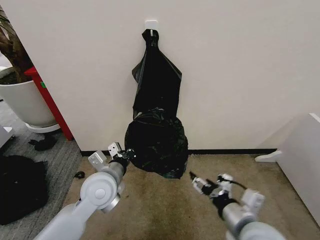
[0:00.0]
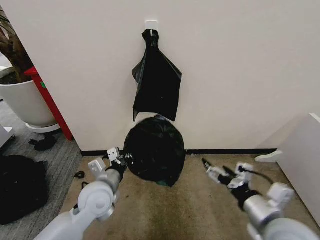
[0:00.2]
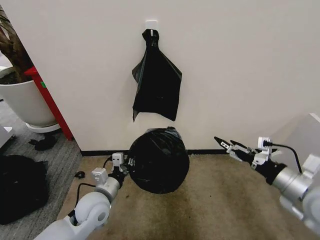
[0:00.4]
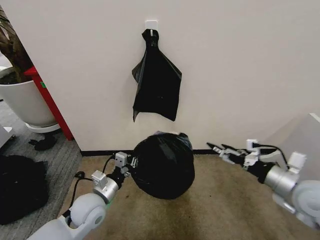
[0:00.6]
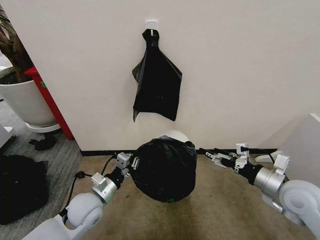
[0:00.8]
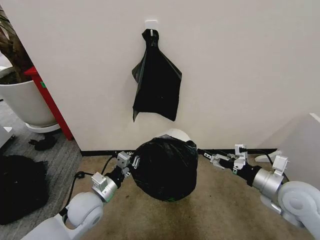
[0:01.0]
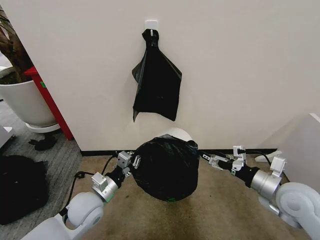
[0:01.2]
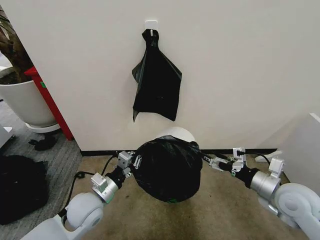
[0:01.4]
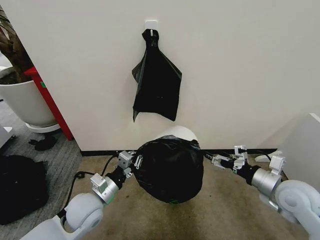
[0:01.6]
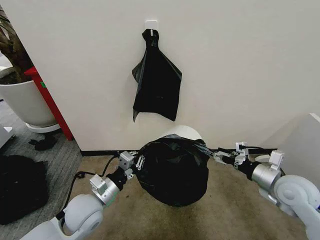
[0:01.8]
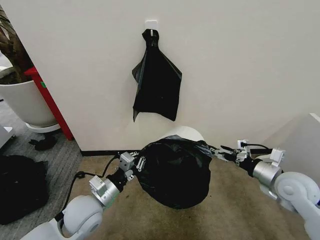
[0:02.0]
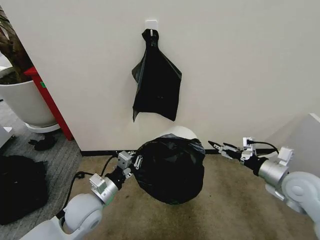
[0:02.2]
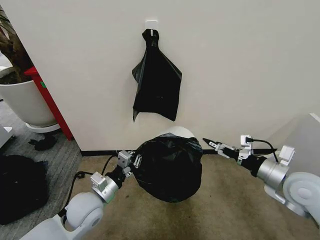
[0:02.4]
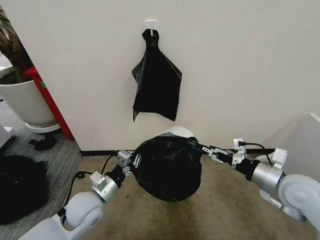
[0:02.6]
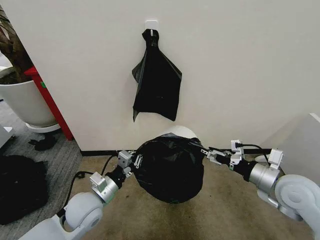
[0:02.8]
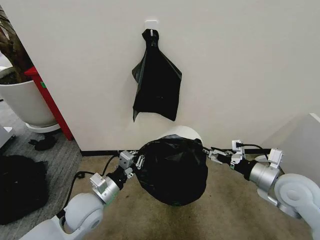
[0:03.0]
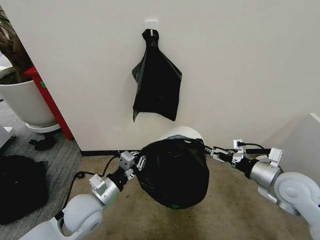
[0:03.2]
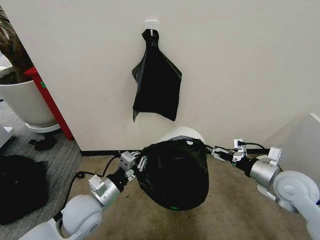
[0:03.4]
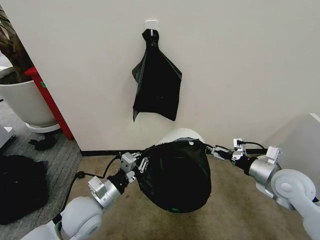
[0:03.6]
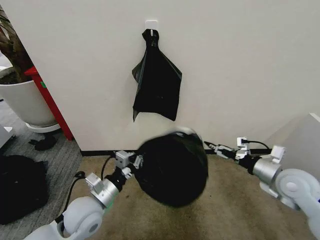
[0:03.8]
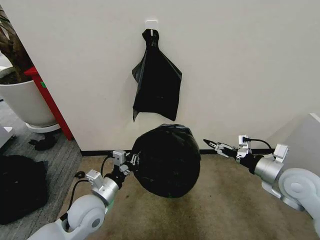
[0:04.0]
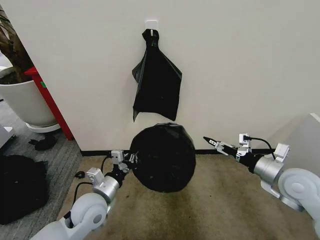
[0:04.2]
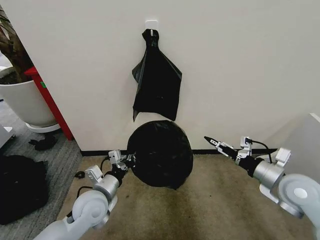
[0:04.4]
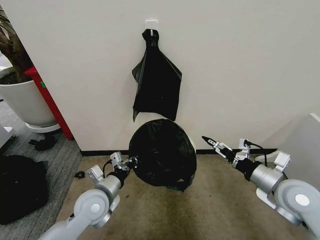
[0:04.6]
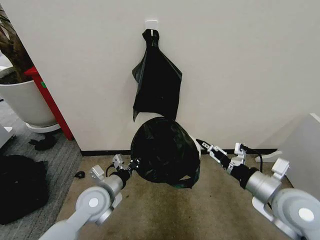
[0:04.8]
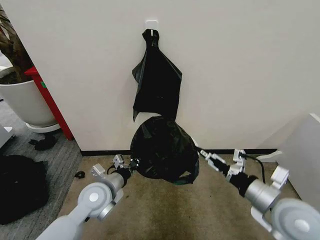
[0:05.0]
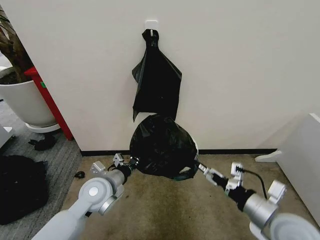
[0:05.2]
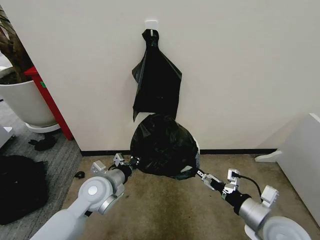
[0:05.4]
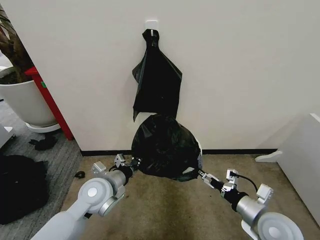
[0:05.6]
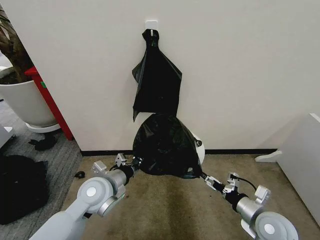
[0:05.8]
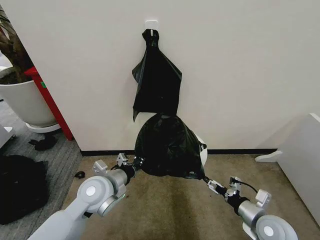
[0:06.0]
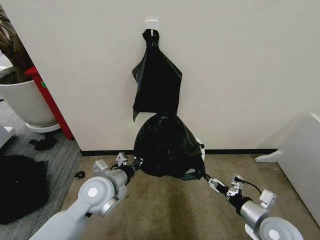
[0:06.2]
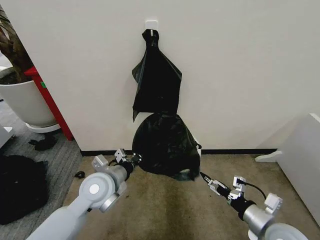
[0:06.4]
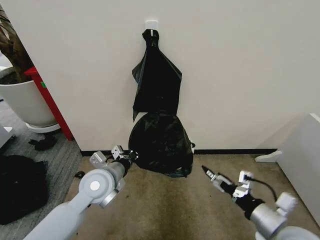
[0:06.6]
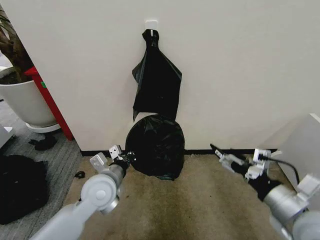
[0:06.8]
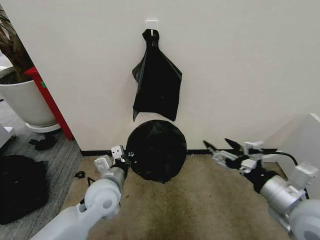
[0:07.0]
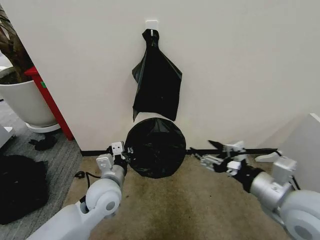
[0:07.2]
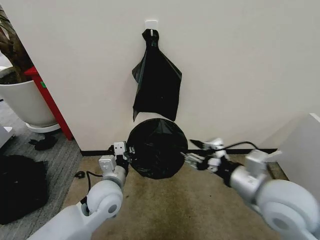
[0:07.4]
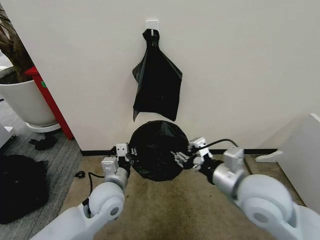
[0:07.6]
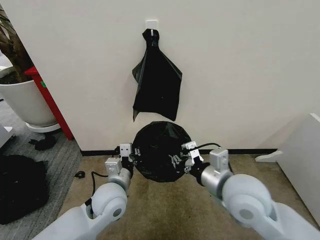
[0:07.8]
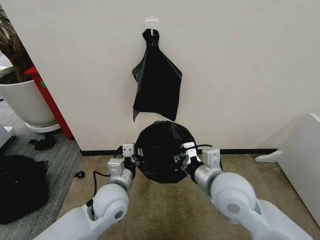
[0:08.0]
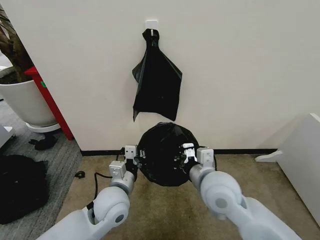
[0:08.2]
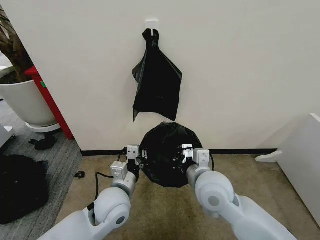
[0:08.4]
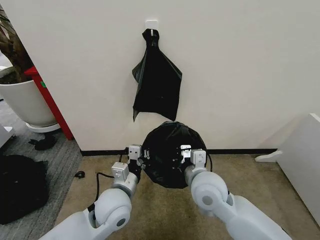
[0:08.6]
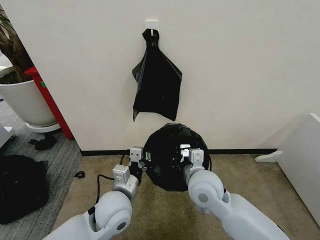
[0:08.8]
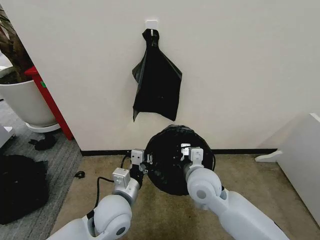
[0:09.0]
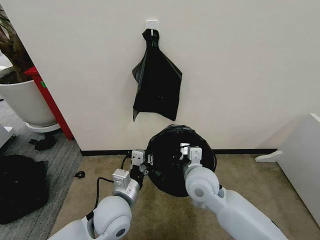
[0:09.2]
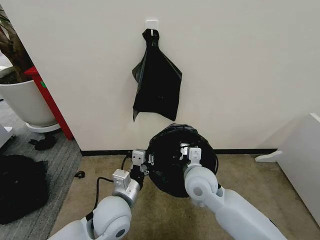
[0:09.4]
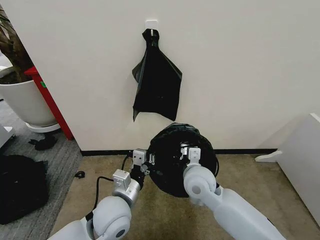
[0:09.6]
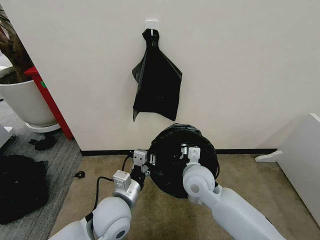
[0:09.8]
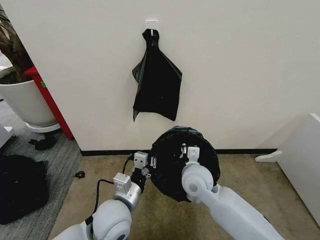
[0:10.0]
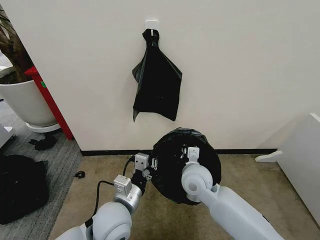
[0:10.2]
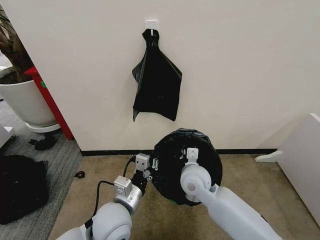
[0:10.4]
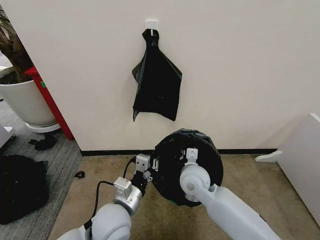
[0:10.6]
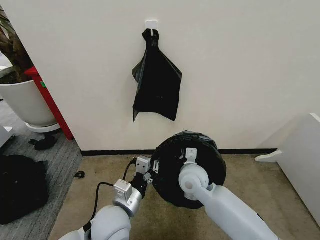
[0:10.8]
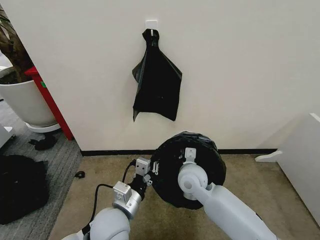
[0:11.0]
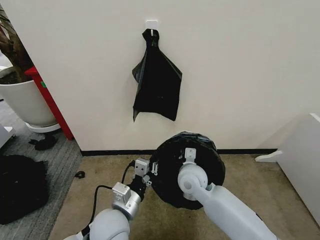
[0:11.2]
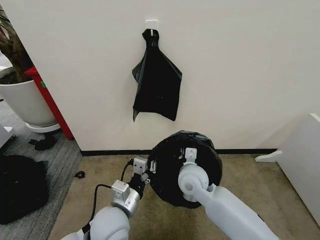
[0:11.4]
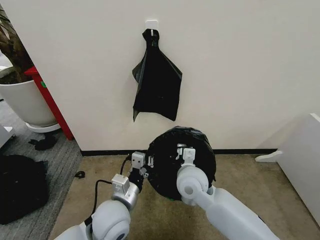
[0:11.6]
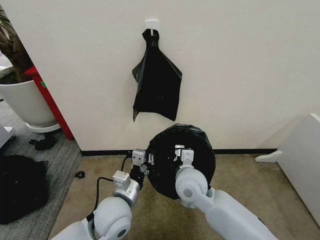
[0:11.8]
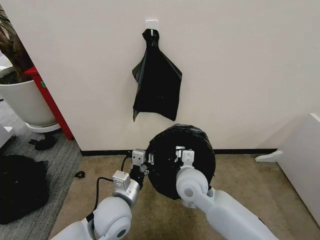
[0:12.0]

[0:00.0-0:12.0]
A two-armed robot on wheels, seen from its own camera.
Task of the whole recording: Place the garbage bag over the trash bin.
0:00.0 to 0:01.6: The left gripper moves downward, approximately 5 cm; the right gripper moves to the right and forward, some 15 cm.
0:01.6 to 0:03.0: The grippers stay close to where they were, moving slightly.
0:04.4 to 0:06.0: The left gripper changes place by roughly 5 cm; the right gripper moves downward and backward, roughly 15 cm.
0:06.0 to 0:07.6: The right gripper goes about 25 cm upward and to the left, and closes.
0:07.6 to 0:09.0: The right gripper heads to the left, downward and forward, covering some 15 cm.
0:09.0 to 0:10.4: The grippers make only small movements.
0:10.4 to 0:12.0: There are only small adjustments of the grippers.

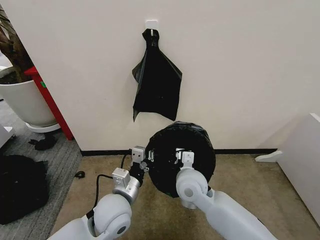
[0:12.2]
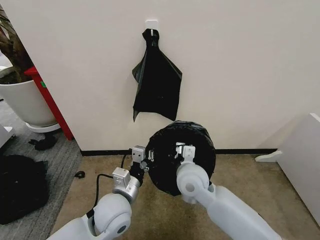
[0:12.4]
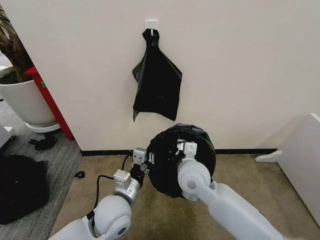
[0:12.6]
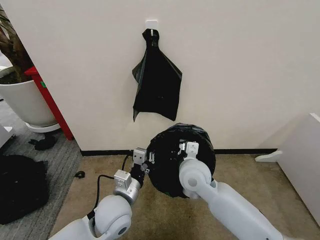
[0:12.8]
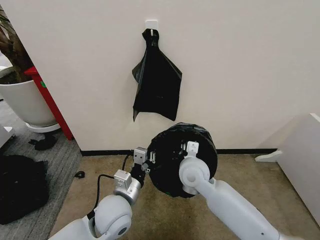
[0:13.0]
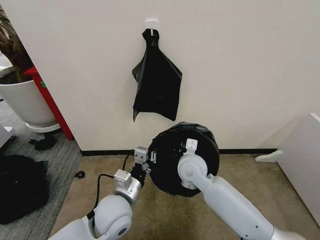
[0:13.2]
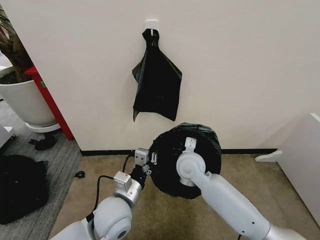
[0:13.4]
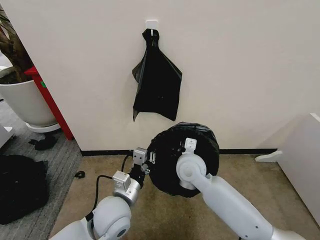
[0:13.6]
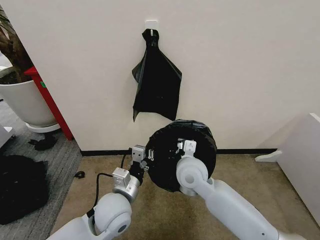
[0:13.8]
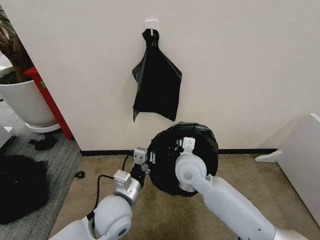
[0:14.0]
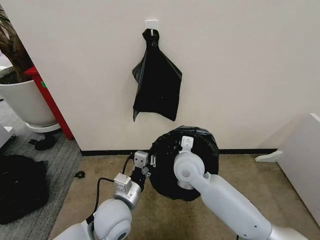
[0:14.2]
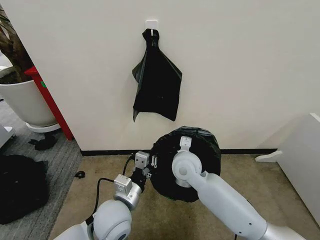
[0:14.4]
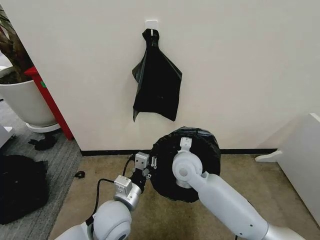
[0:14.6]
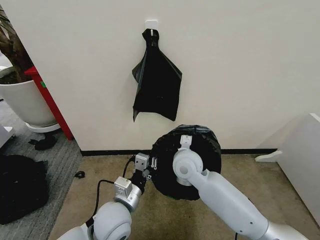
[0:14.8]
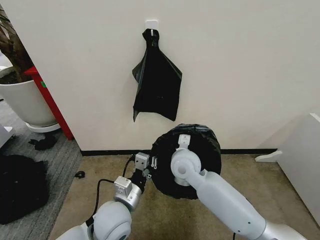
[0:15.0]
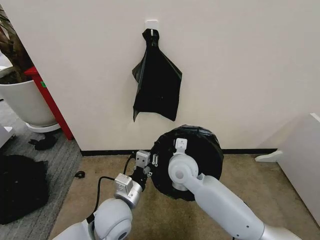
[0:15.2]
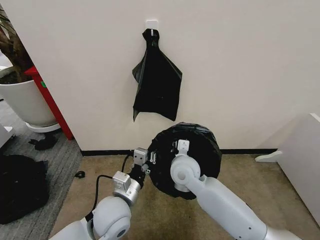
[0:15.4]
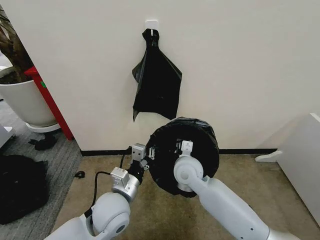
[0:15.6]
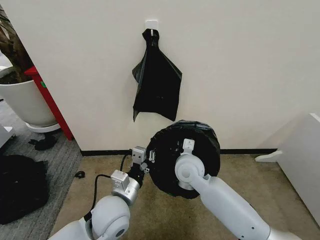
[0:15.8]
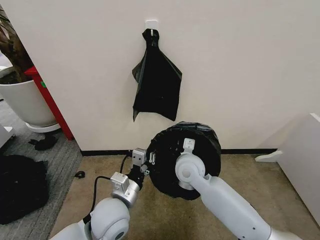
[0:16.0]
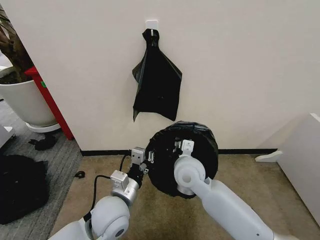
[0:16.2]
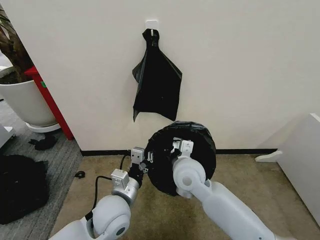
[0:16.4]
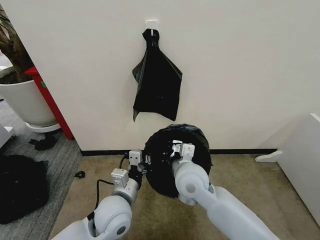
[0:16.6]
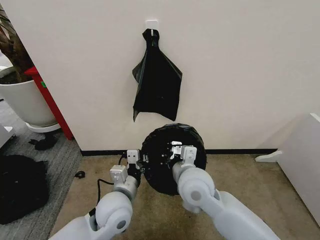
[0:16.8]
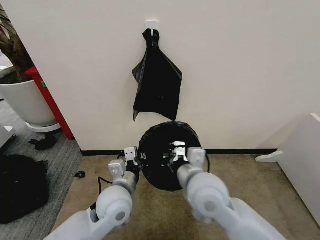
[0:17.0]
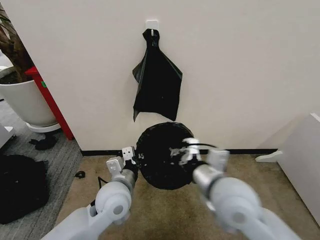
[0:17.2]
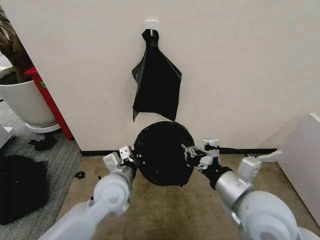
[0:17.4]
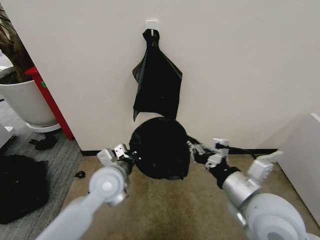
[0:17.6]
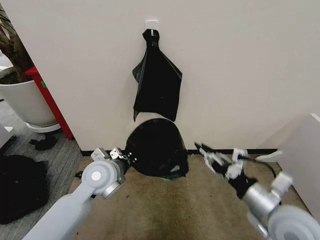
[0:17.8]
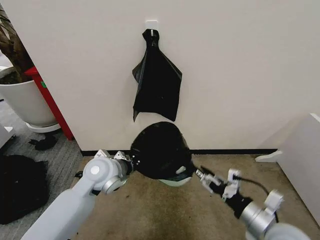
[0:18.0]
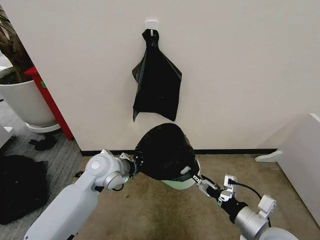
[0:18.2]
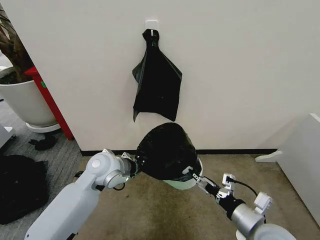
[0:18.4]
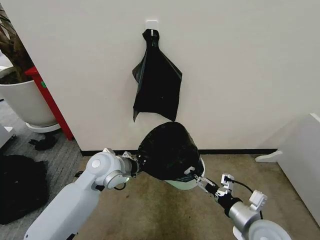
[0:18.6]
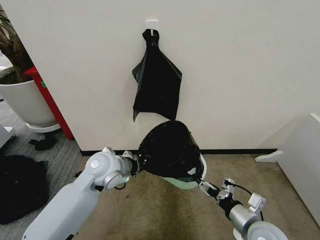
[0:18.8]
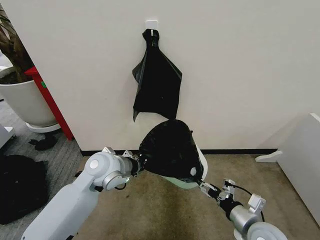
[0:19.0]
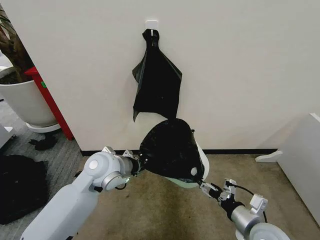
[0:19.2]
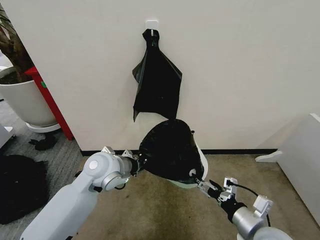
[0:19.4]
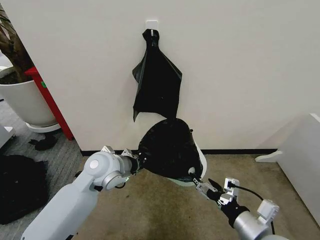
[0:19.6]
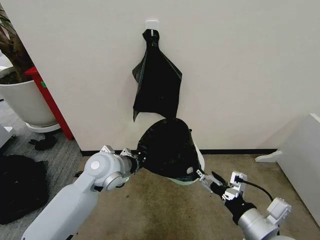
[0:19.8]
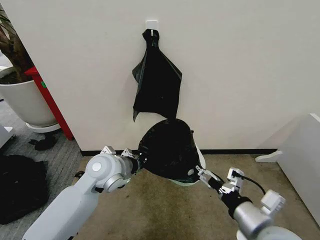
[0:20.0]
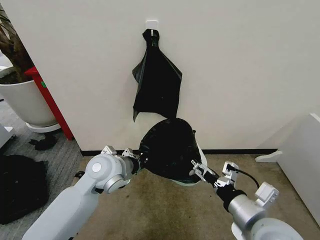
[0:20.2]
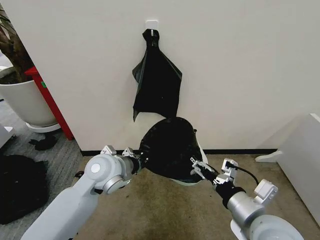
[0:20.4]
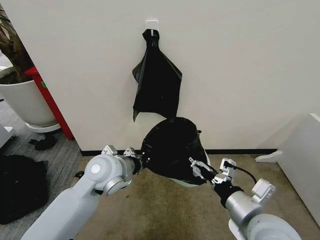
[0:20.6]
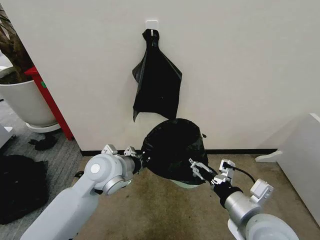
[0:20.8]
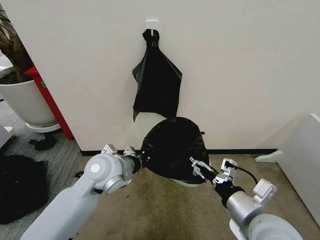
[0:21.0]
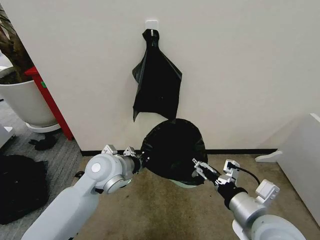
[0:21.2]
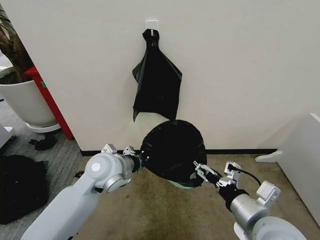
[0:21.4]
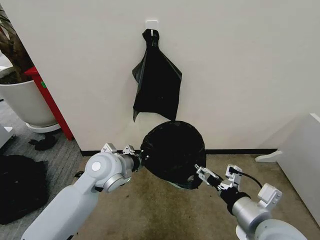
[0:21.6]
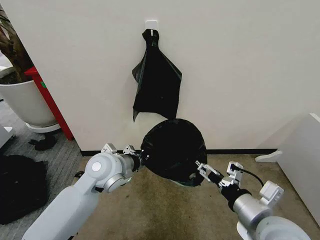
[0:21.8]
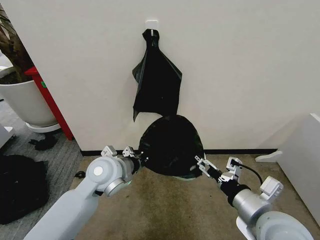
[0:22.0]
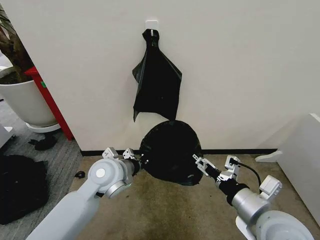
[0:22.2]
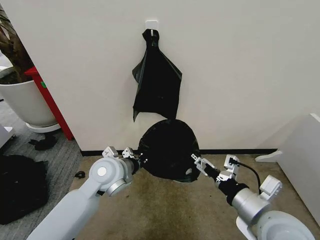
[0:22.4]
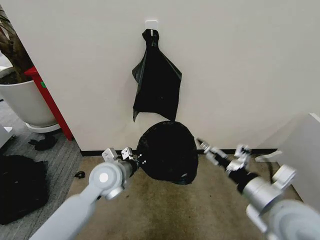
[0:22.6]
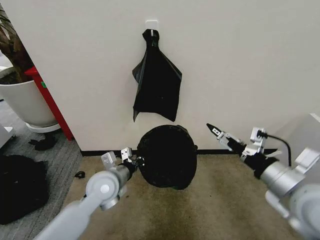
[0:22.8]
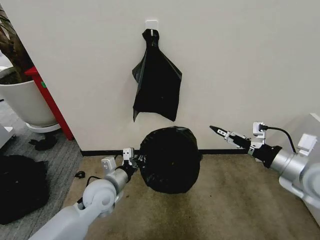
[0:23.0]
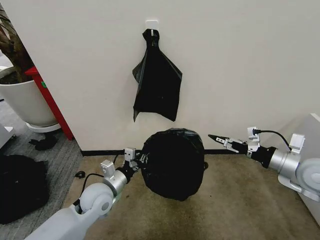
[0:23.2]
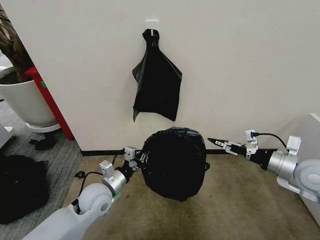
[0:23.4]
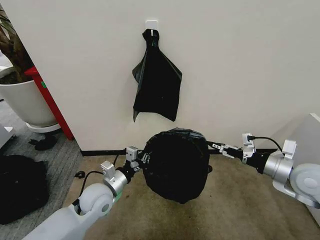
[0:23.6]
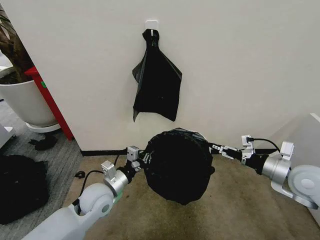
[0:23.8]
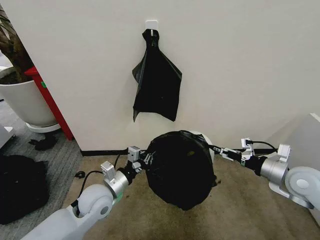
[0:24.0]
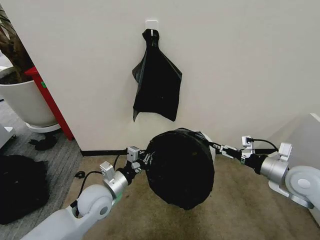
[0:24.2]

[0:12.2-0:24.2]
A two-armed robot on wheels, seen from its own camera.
Task of the whole recording: Place the garbage bag over the trash bin.
0:13.8 to 0:15.2: There are only small adjustments of the grippers.
0:15.2 to 0:16.6: The right gripper changes place by some 5 cm.
0:16.6 to 0:18.2: The right gripper moves to the right and backward, some 25 cm, and opens its fingers, while the left gripper shifts about 10 cm forward.
0:18.2 to 0:19.8: The right gripper heads upward, covering about 5 cm.
0:19.8 to 0:21.2: There are only small adjustments of the grippers.
0:21.2 to 0:22.6: The right gripper moves some 5 cm.
0:22.6 to 0:24.2: The left gripper heads downward, covering approximately 5 cm. The right gripper heads to the right and forward, covering some 15 cm.
